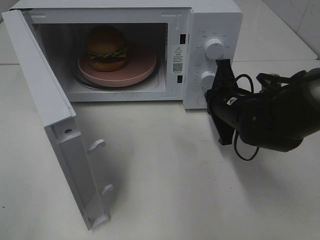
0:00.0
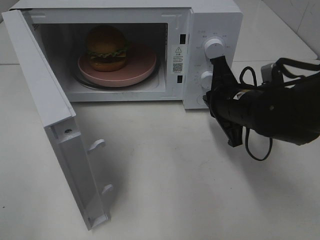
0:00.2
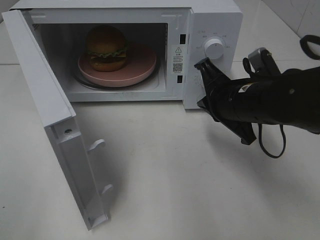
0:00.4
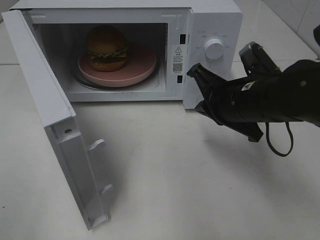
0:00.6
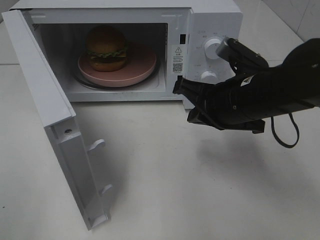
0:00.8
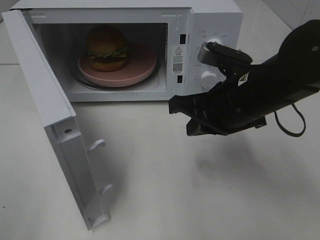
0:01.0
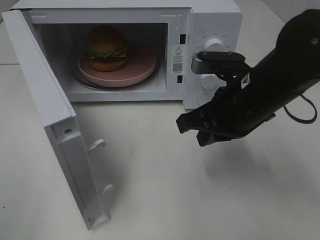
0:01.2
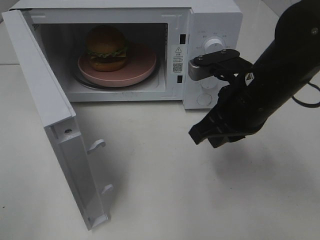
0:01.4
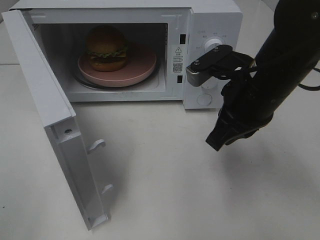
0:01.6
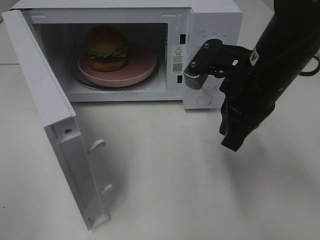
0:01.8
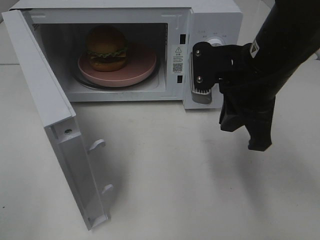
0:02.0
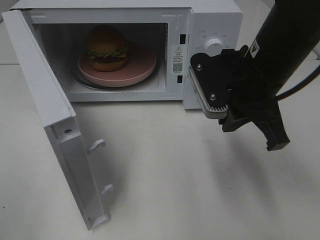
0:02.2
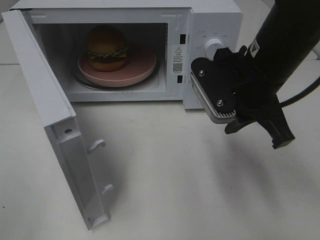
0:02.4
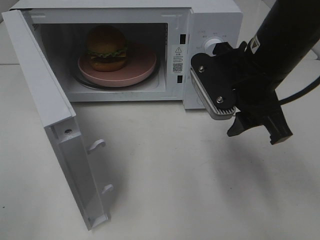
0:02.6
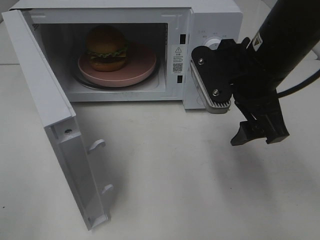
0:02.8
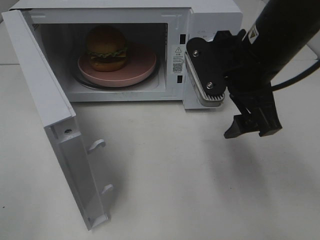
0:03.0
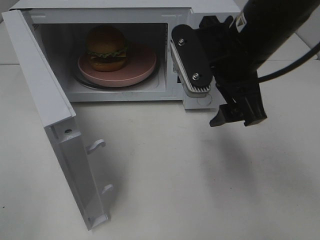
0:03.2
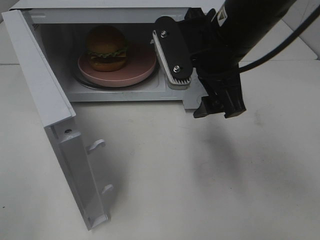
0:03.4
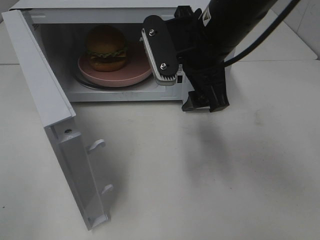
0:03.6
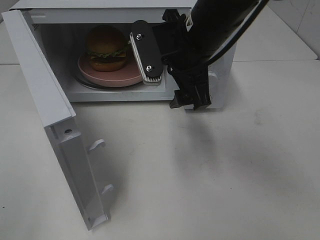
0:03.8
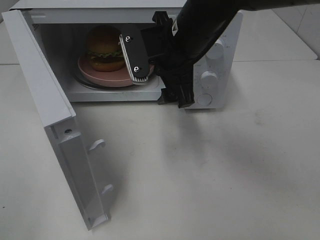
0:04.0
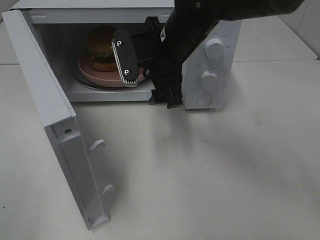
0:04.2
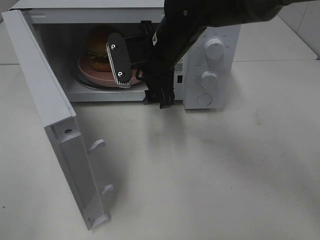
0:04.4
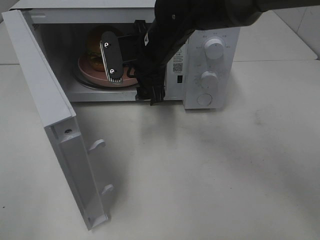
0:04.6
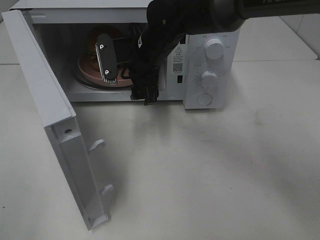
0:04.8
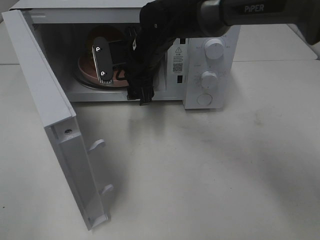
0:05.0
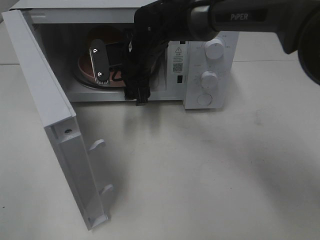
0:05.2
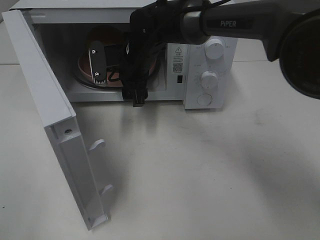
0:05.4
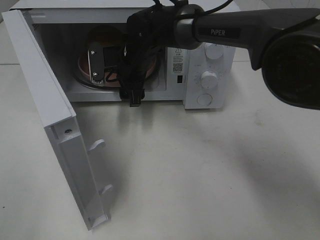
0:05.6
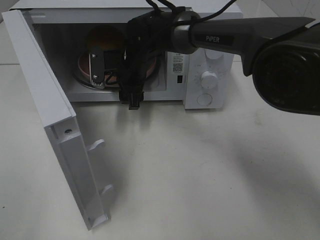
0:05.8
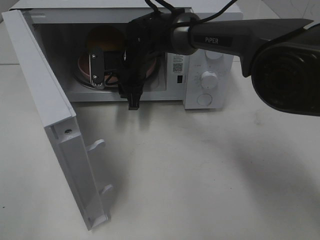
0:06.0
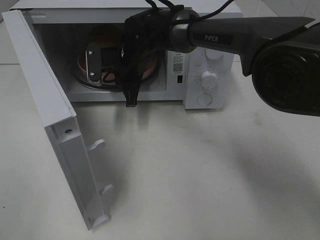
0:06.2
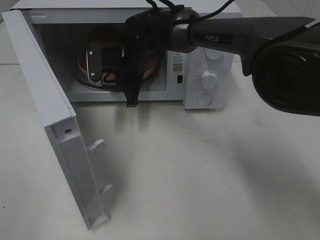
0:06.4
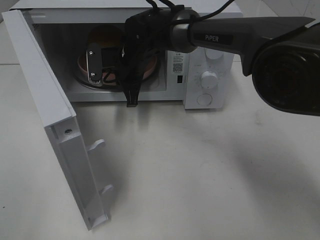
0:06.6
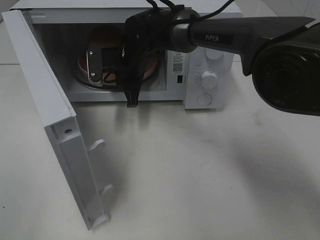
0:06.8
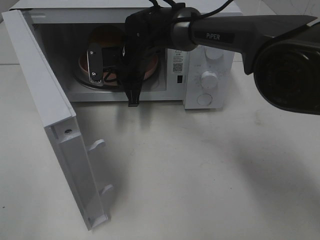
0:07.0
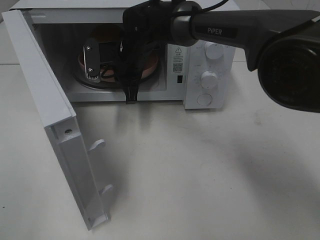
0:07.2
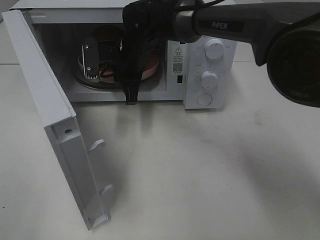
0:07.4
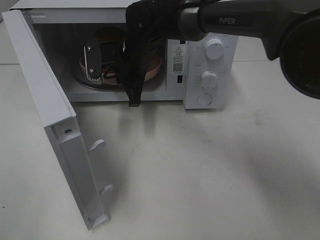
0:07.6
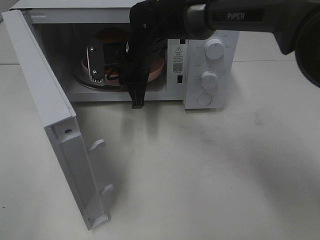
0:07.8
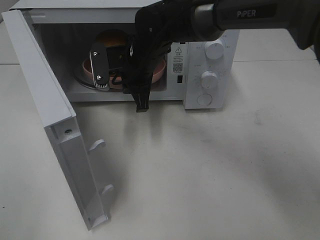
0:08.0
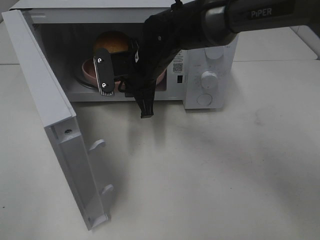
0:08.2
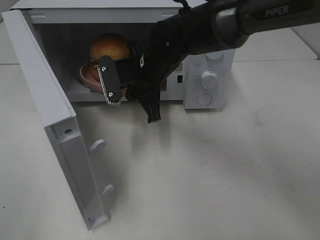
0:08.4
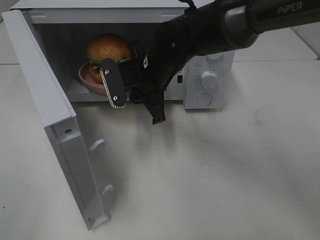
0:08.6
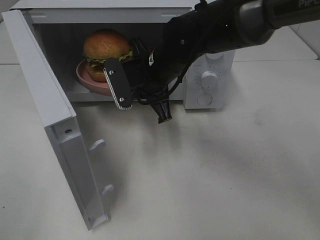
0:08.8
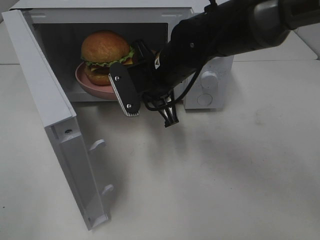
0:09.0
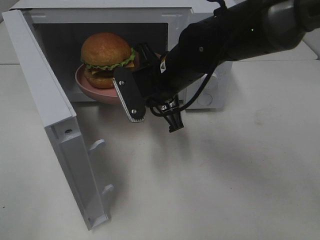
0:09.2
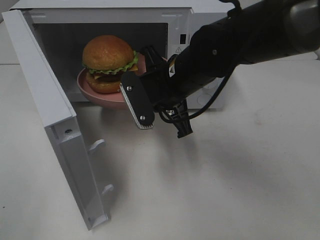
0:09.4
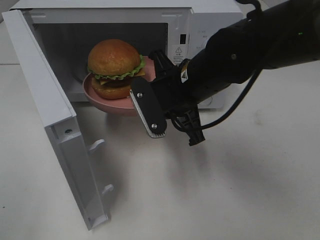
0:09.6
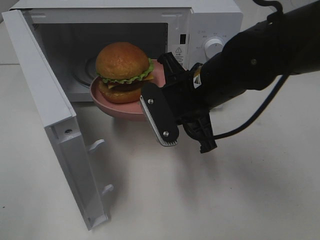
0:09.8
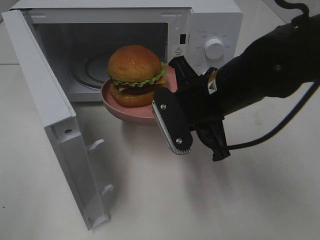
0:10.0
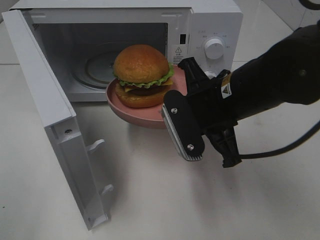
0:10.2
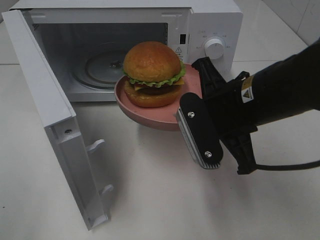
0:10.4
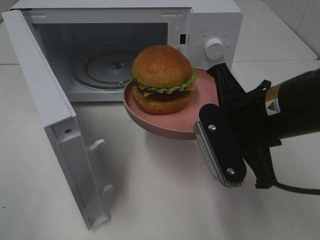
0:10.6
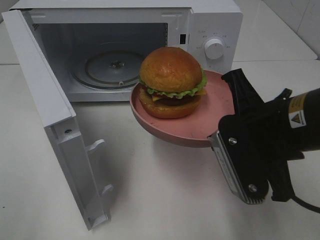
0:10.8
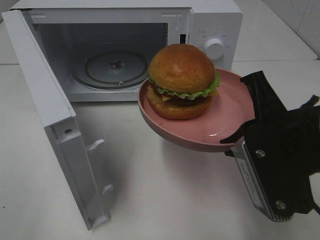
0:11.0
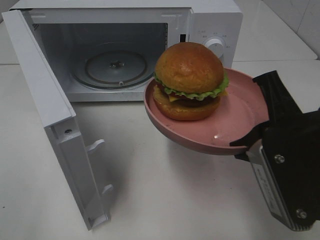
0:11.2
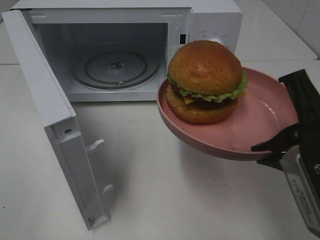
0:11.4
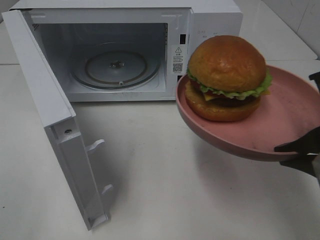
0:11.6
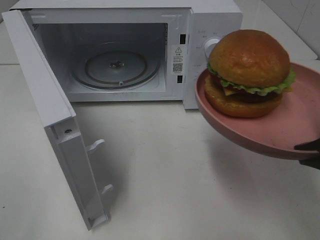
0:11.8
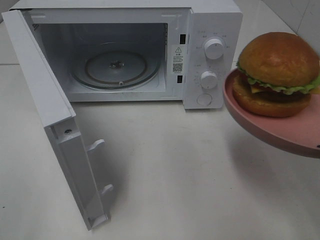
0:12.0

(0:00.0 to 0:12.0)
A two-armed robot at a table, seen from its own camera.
Task of the whole recording: Heat the burger.
Step, 0:00.2 - 0:07.2: Right hand: grab the plate with the hamburger.
0:00.0 - 0:01.6: The right gripper is displaced upward and backward by roughly 10 cm.
0:01.6 - 0:03.0: The right gripper opens up.
0:03.0 - 0:04.4: The right gripper is displaced to the left, forward and downward by about 15 cm.
0:04.4 - 0:06.0: The right gripper is displaced forward, downward and to the left by approximately 10 cm, and closes.
0:06.0 - 0:07.6: The grippers make only small movements.
0:07.6 - 0:09.0: The right gripper heads backward and to the right, covering roughly 10 cm.
0:09.0 - 0:10.4: The right gripper is displaced backward and to the right by some 15 cm.
0:10.4 - 0:12.0: The right gripper shifts roughly 15 cm to the right and backward.

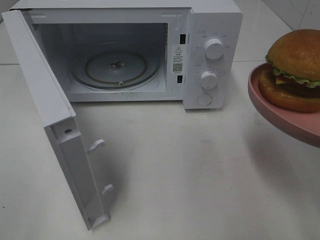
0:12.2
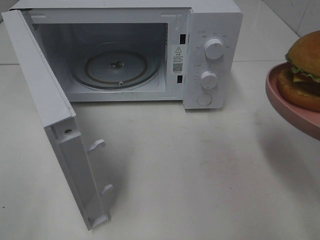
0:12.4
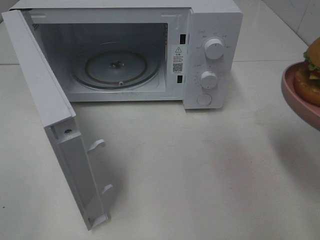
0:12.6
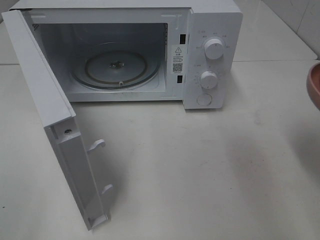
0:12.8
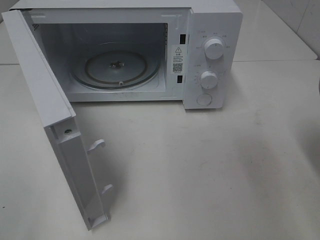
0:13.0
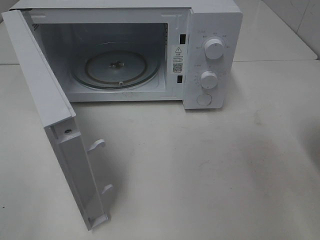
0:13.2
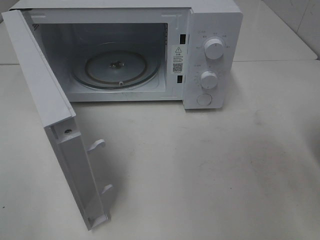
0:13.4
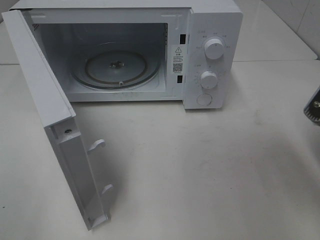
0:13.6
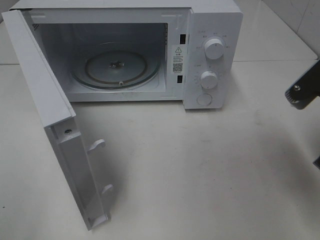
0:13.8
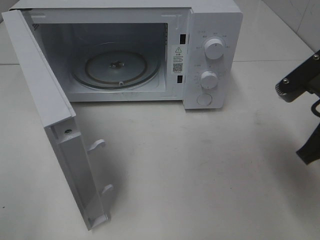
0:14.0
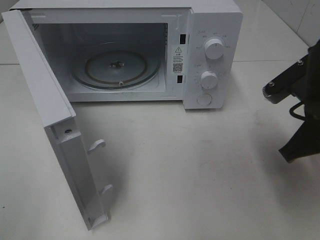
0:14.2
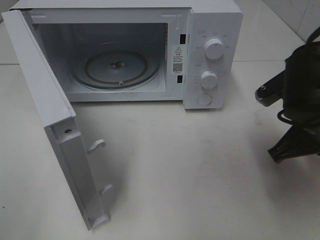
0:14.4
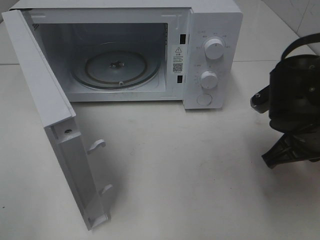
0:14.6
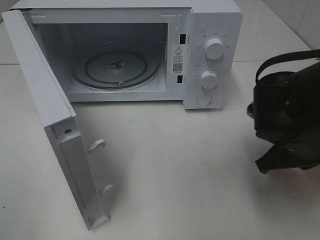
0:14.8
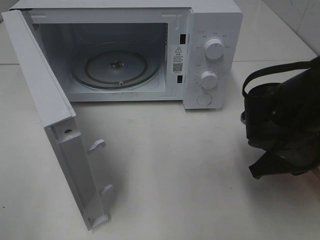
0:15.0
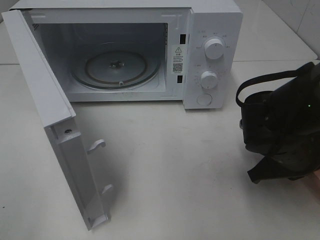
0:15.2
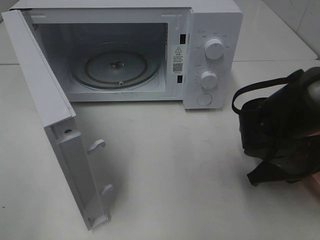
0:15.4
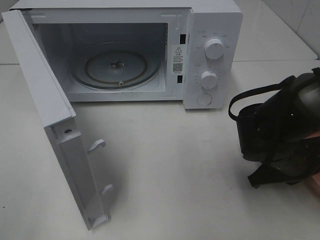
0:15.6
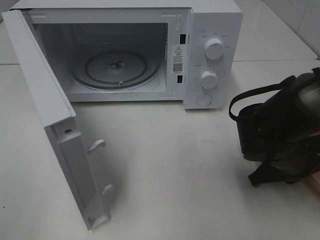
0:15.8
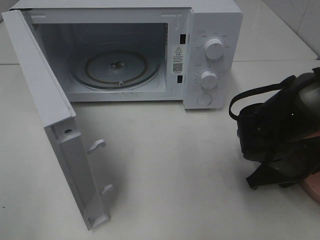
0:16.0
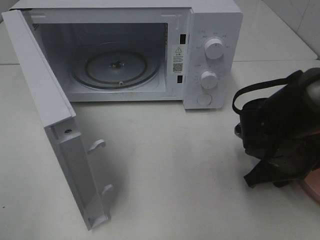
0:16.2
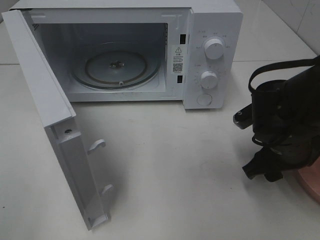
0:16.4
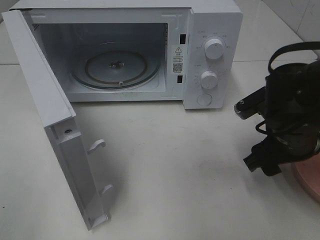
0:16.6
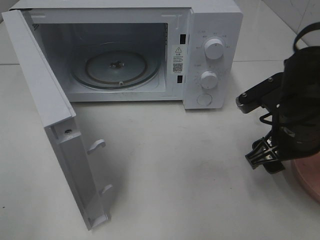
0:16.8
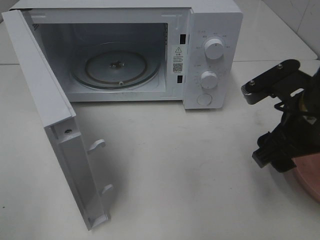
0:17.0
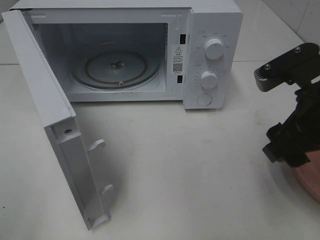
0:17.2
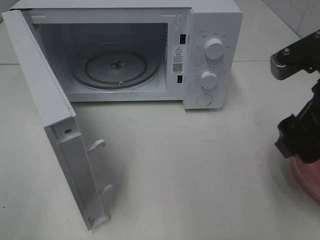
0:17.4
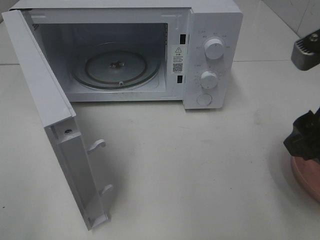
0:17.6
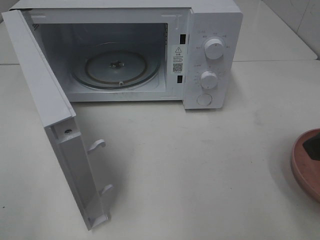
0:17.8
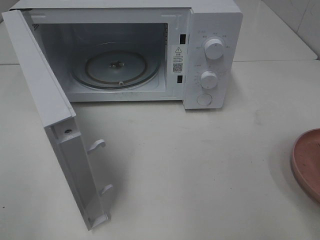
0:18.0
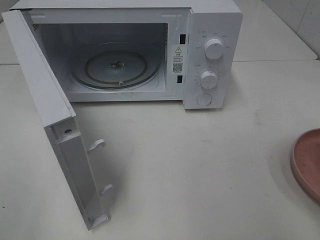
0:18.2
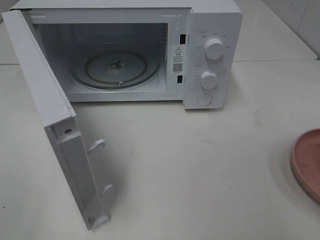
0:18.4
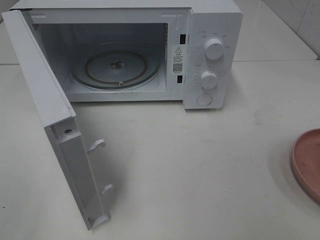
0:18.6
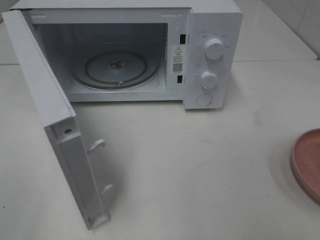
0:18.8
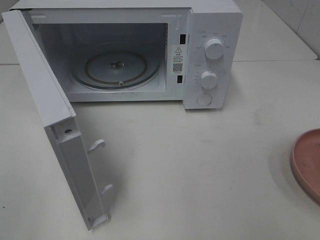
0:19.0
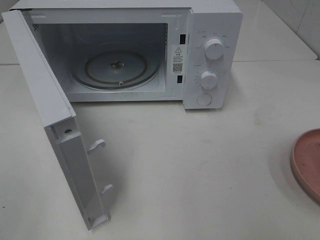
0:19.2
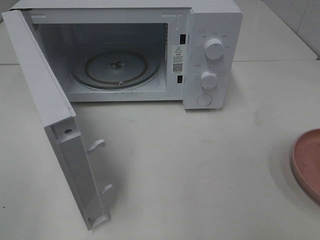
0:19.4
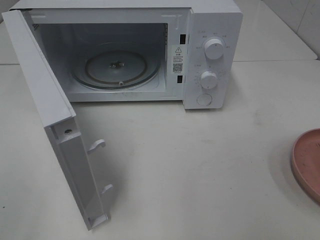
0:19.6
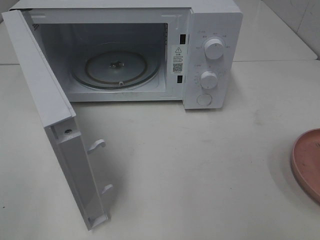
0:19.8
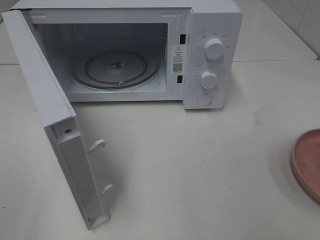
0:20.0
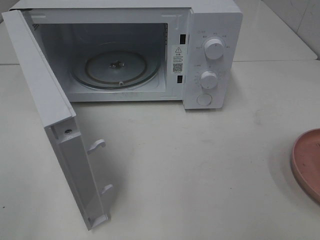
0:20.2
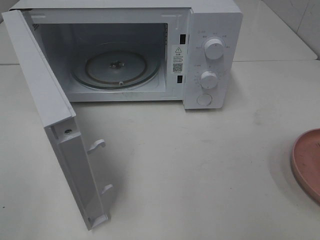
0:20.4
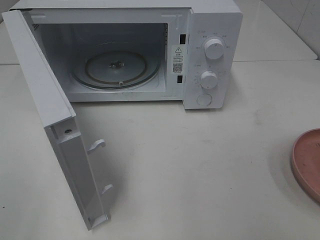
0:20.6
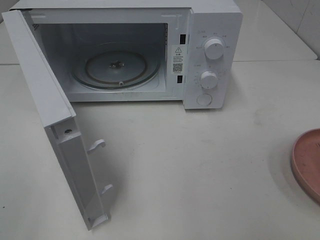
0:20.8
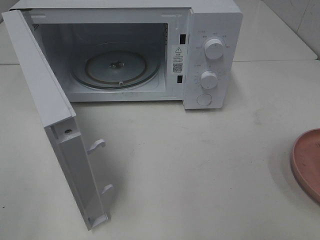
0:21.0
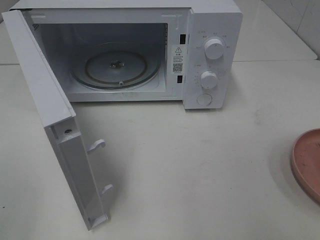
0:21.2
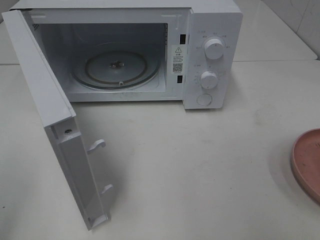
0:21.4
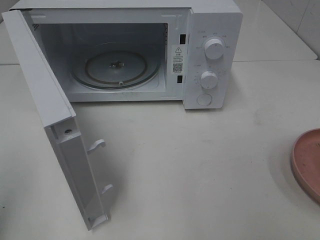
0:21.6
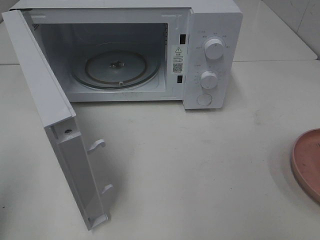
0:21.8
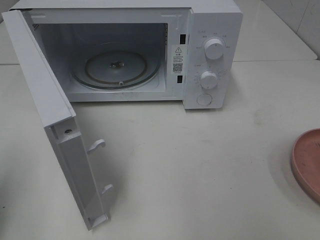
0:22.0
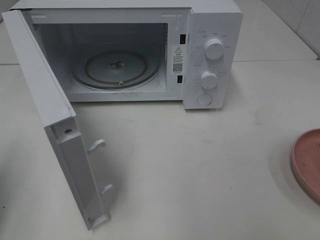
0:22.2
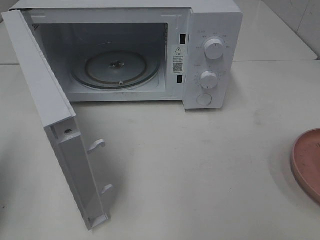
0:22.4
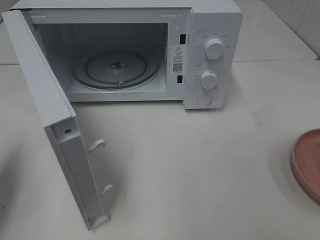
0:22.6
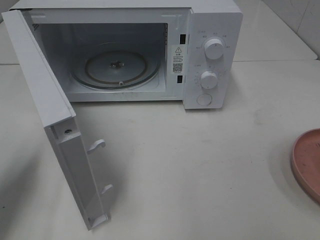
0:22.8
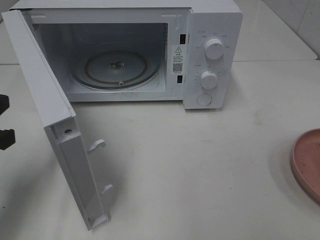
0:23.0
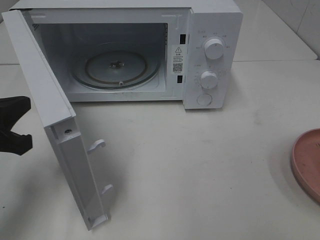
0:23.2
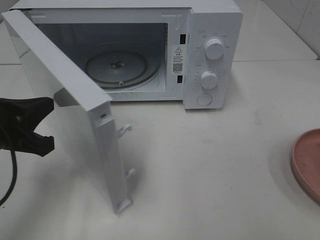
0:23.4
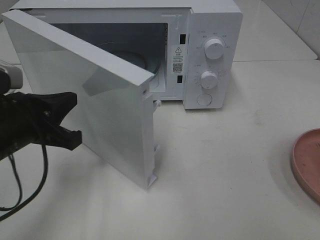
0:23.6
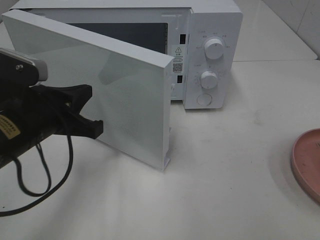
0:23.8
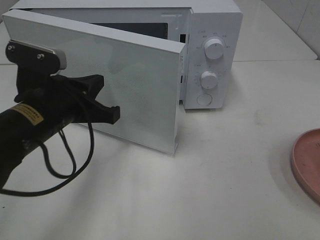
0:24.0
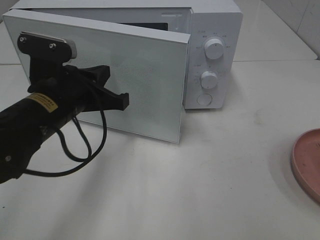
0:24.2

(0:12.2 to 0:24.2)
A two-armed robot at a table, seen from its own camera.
Task of the whole recording: Heat the burger.
Step, 0:12.2 - 0:16.6: Right hand: place the plate on the table.
0:12.2 - 0:13.8: The right gripper shifts some 5 cm forward.
0:13.8 - 0:15.2: The right gripper shifts some 15 cm downward and forward.
0:15.2 - 0:16.6: The right gripper opens its fingers.
0:16.6 - 0:18.2: The right gripper is displaced upward, backward and to the right by about 25 cm.
0:21.2 - 0:22.6: The left gripper moves forward and downward, roughly 15 cm, and closes its fingers.
0:22.6 - 0:24.2: The left gripper shifts some 20 cm to the right and forward.
